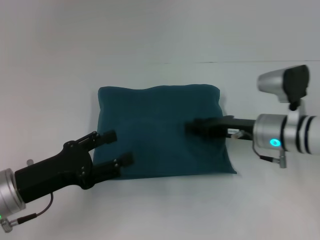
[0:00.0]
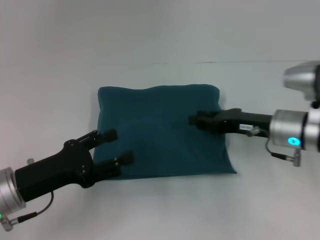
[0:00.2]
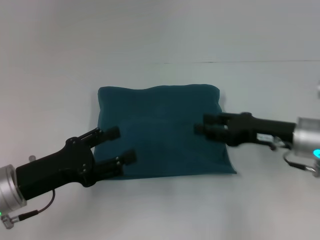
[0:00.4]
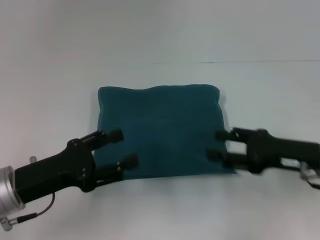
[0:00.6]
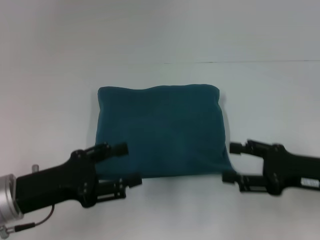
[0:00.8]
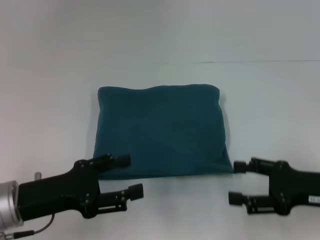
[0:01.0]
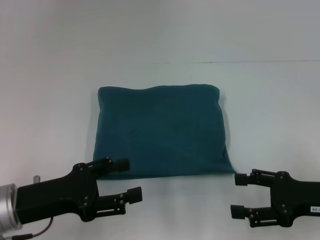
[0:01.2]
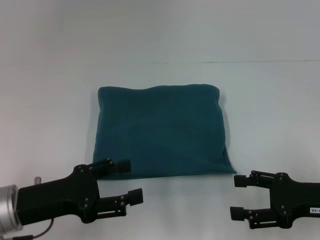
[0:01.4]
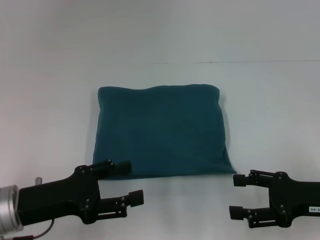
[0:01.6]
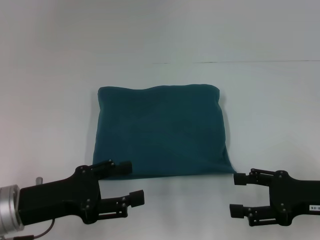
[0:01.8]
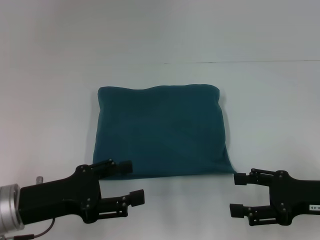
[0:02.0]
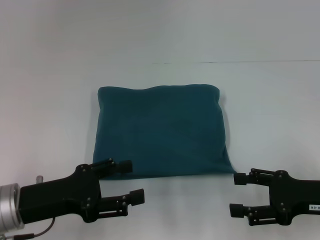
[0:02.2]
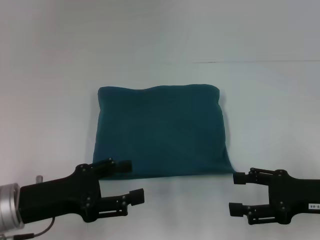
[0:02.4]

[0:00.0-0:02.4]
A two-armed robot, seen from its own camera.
0:00.0 to 0:01.2: The right gripper heads backward and to the right, covering some 15 cm, and opens up.
0:01.2 to 0:02.4: Both grippers stay put.
